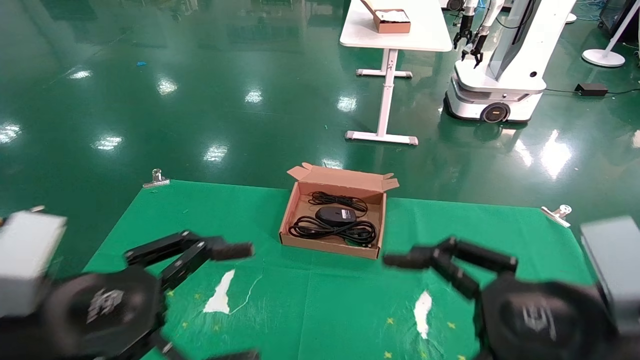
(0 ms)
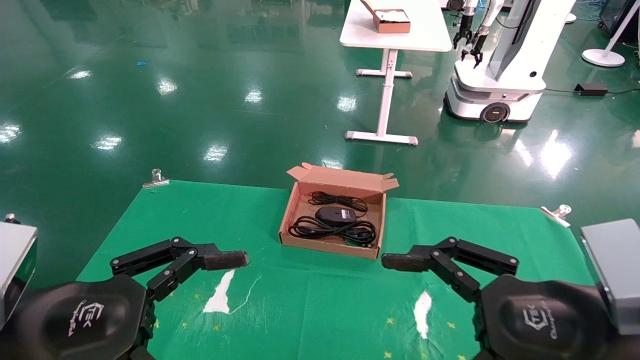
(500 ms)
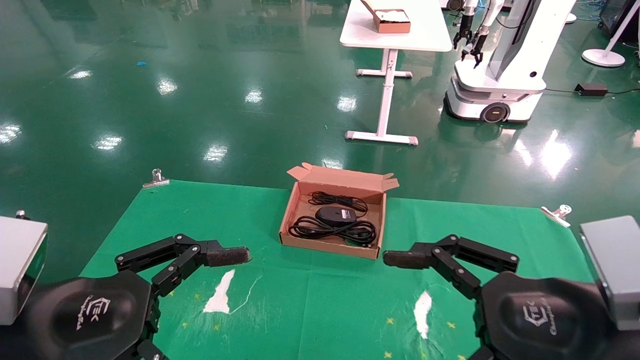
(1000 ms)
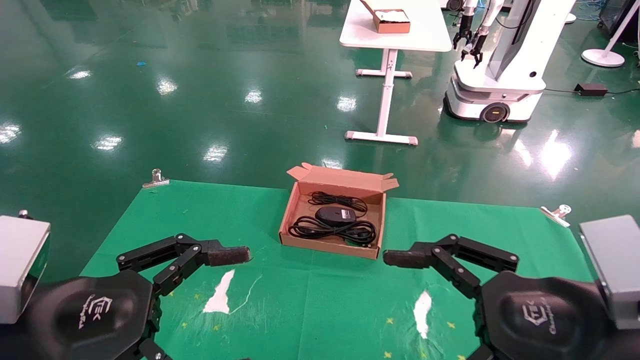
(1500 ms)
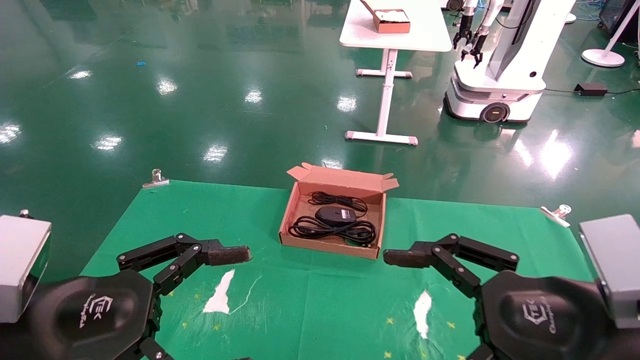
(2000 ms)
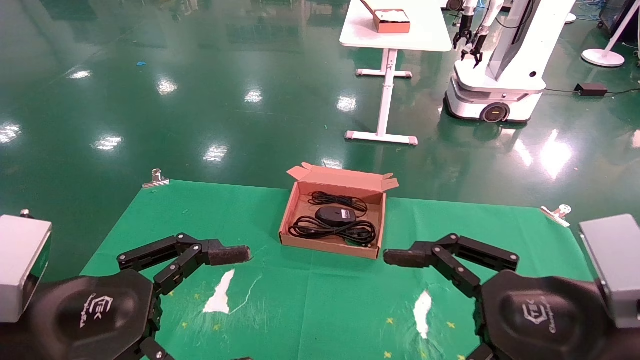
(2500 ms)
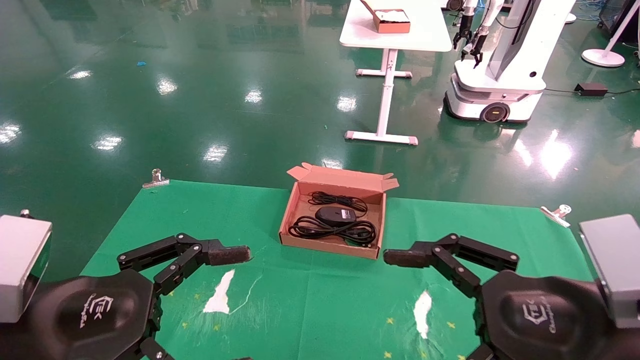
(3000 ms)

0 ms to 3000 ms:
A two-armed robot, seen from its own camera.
0 ms to 1500 ms: There are only small adjustments of the grippers.
1500 ms to 3000 ms: Both grippers stay put.
